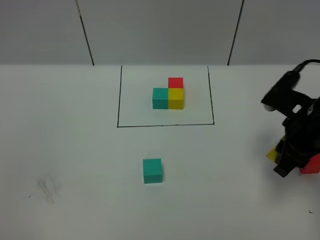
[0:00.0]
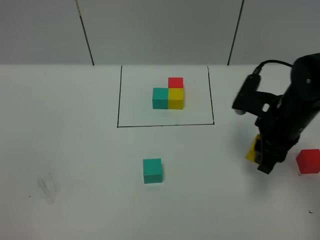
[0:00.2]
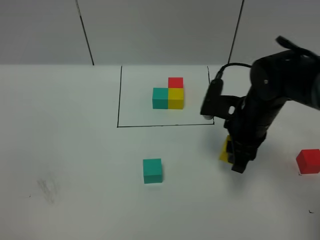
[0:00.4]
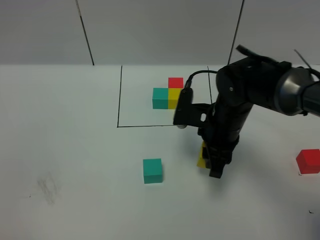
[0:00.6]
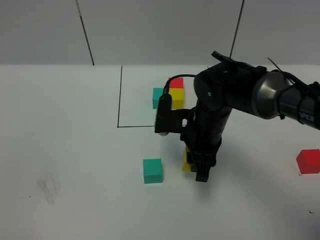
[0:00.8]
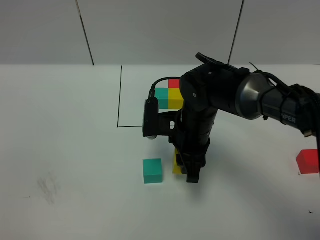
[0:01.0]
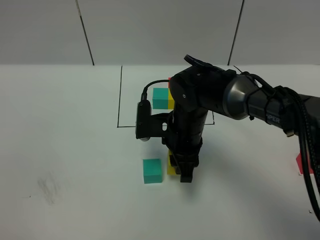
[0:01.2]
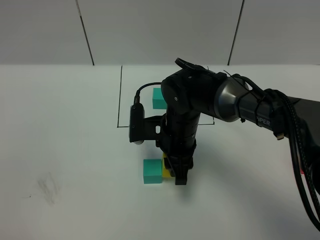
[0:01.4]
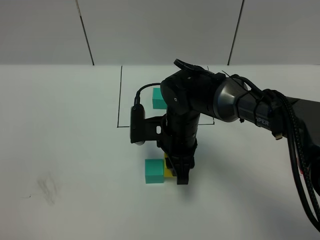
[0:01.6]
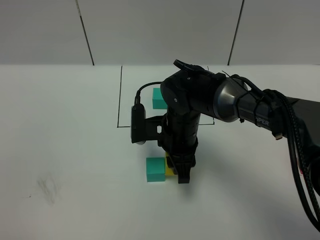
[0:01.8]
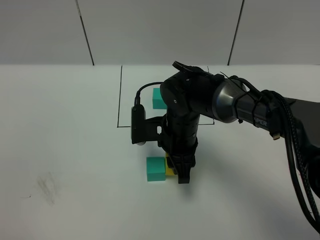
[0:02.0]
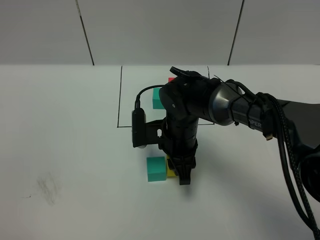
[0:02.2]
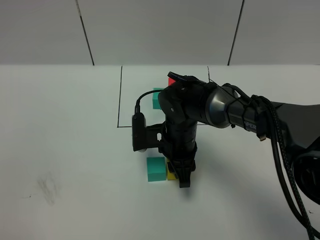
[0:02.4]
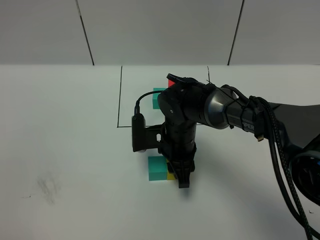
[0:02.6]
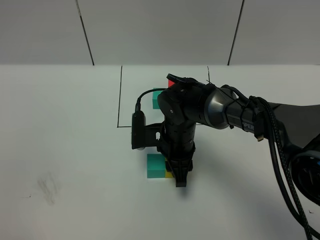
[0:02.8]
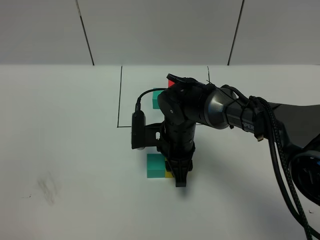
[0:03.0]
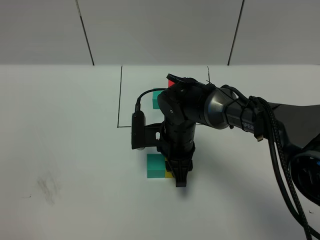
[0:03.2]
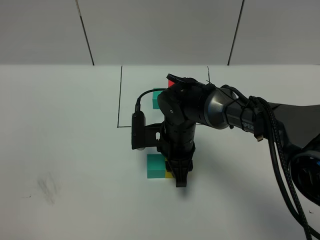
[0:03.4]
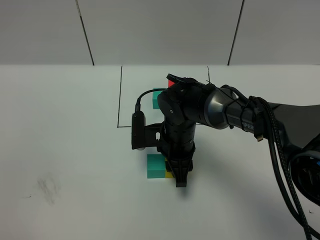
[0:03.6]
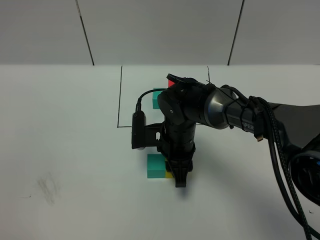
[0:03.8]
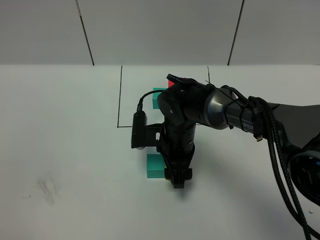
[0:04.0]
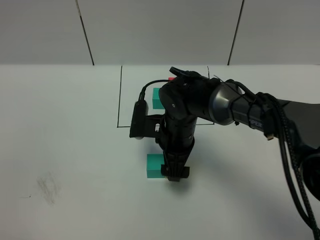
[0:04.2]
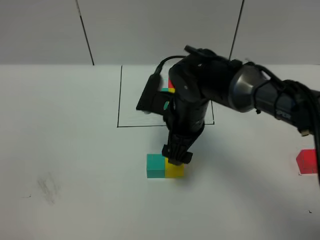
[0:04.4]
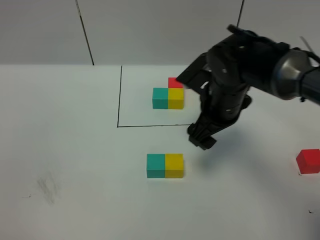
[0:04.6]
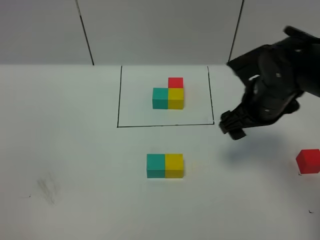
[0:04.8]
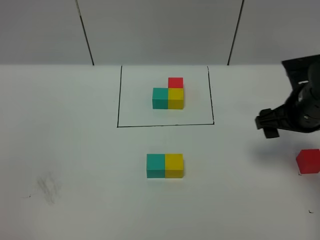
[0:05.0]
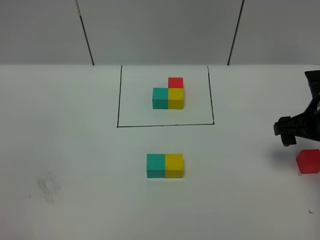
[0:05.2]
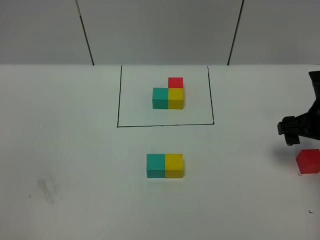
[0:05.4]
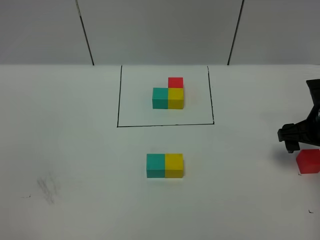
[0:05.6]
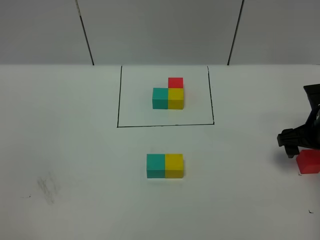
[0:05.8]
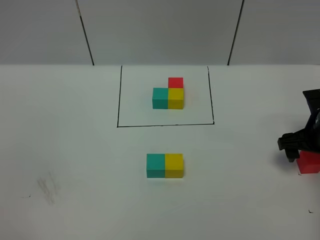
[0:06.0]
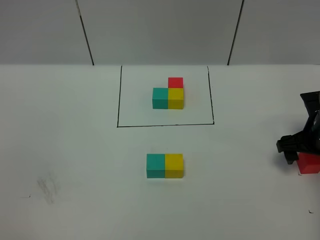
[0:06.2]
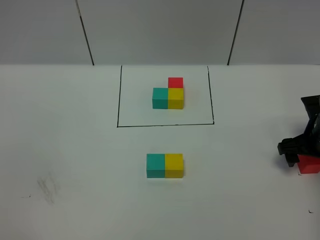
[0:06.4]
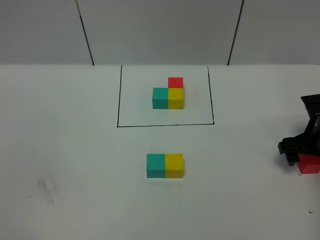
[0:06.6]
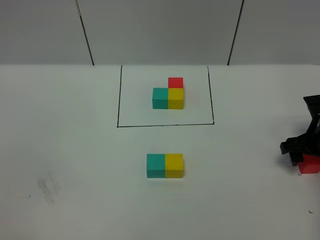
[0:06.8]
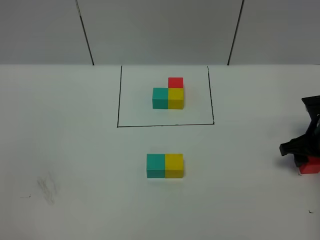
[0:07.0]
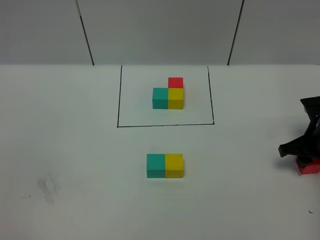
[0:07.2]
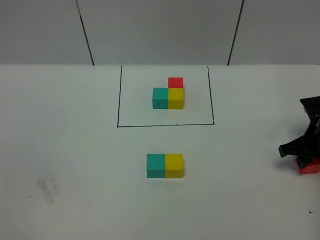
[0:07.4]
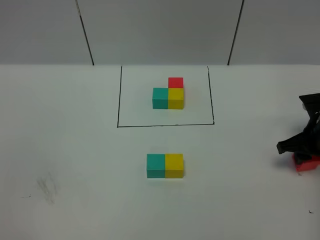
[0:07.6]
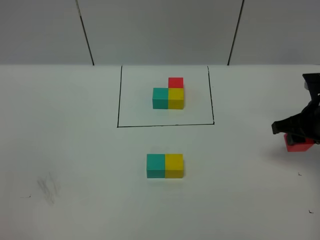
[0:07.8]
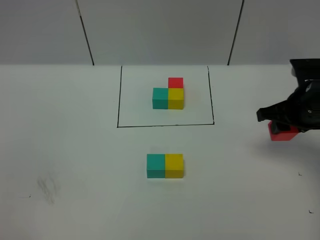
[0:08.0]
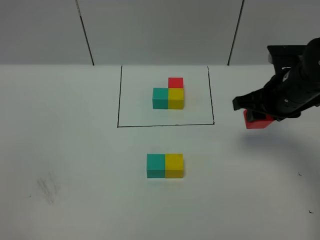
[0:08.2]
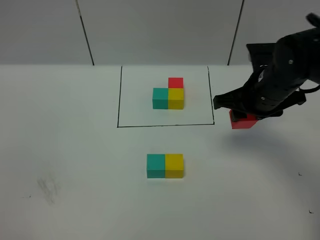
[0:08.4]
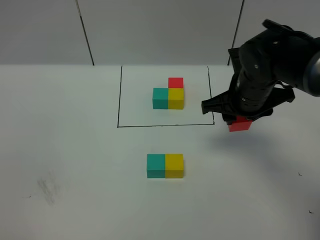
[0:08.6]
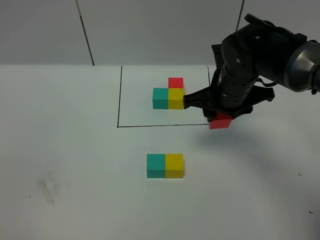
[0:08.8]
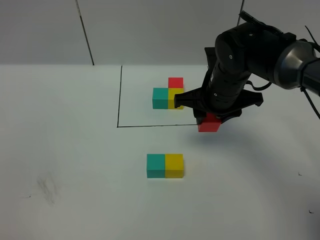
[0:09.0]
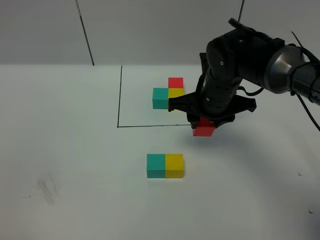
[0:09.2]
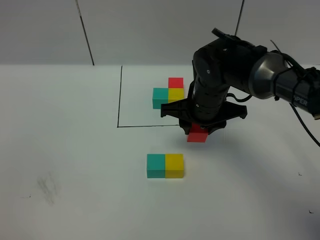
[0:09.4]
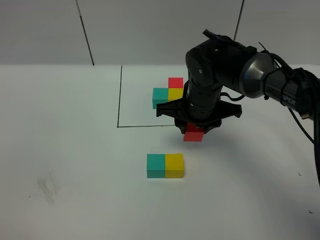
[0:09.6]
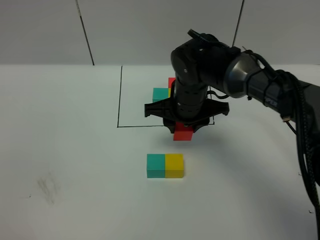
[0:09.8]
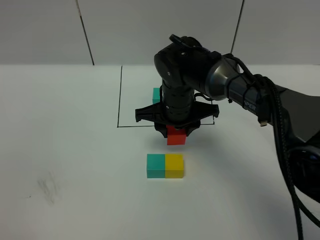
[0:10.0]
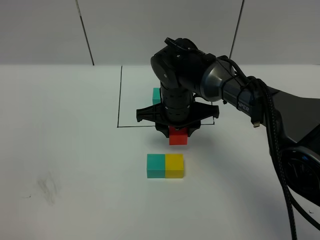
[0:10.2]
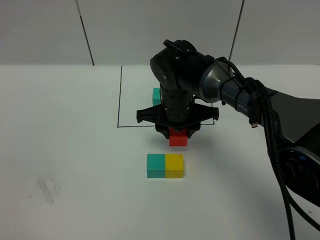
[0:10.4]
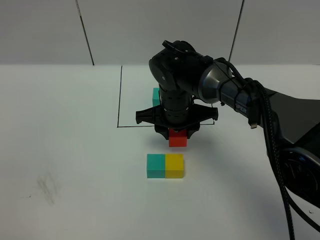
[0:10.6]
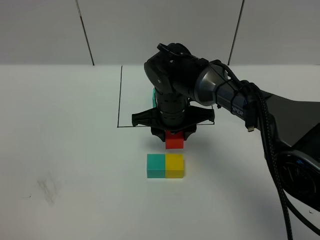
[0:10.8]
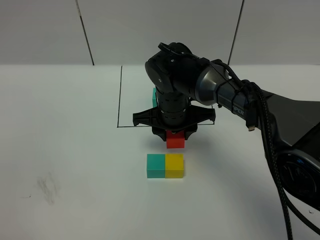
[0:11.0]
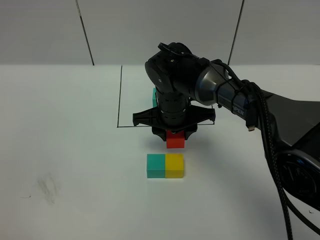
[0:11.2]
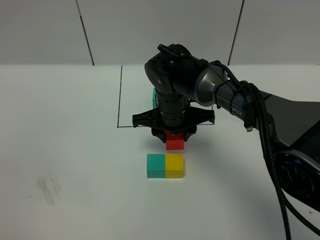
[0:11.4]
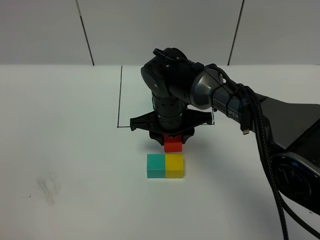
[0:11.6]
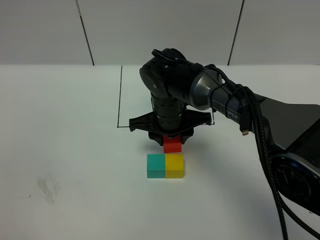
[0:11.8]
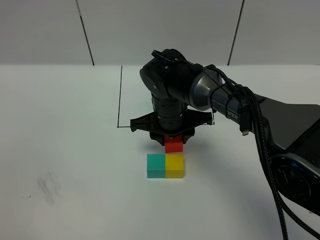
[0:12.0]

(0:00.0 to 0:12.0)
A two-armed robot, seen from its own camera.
Task of the whole recording: According to the building block template in front, assemble the scattered blocks together.
Step, 0:00.0 - 0:04.2: Put the yellow cube on the right of the green cube.
0:00.0 - 0:01.6: The right gripper goes some 20 cm to the left.
0:01.6 - 0:03.0: There are only small adjustments of the grippers.
0:03.0 - 0:04.4: The right gripper heads upward, covering some 5 cm, and opens.
0:04.4 - 0:06.0: The right gripper travels to the right by approximately 25 cm.
0:06.0 - 0:07.6: The right gripper closes up.
0:07.6 - 0:09.0: The right gripper heads to the left, covering approximately 20 cm.
0:09.0 - 0:10.4: The right gripper is displaced to the left by about 10 cm.
0:10.4 - 0:12.0: There are only small adjustments of the grippers.

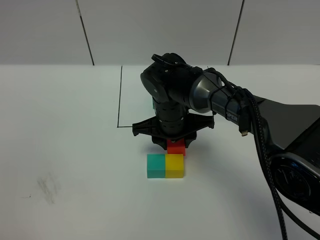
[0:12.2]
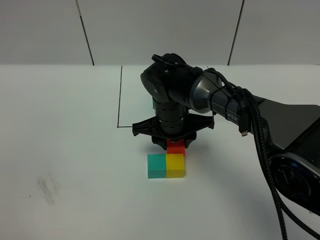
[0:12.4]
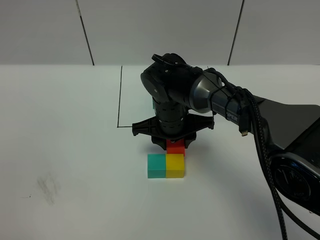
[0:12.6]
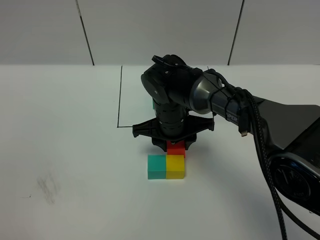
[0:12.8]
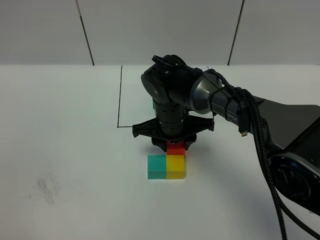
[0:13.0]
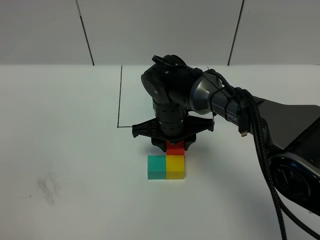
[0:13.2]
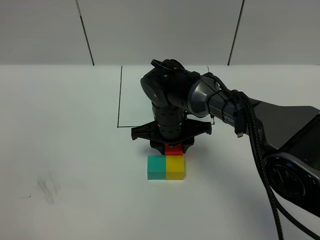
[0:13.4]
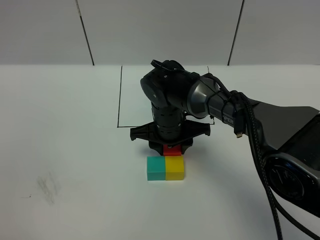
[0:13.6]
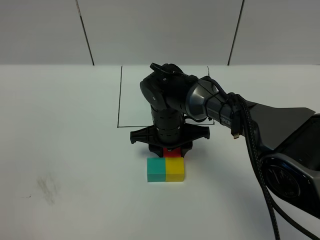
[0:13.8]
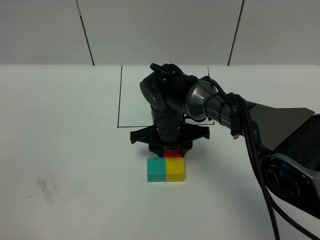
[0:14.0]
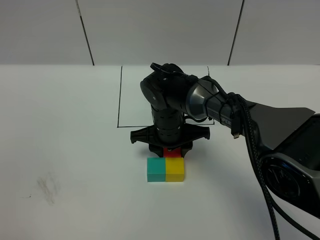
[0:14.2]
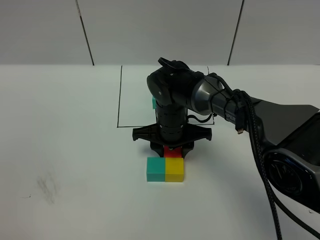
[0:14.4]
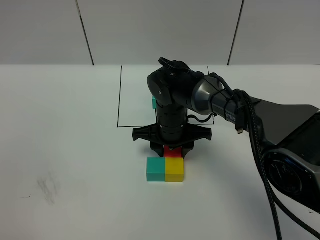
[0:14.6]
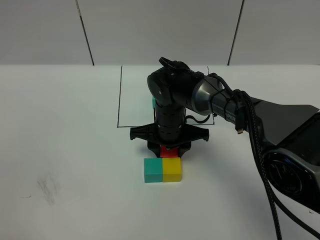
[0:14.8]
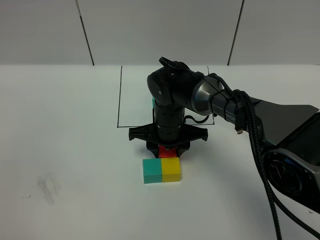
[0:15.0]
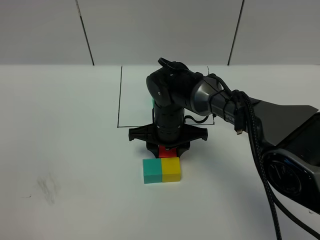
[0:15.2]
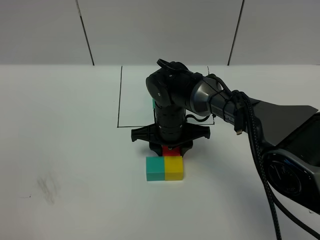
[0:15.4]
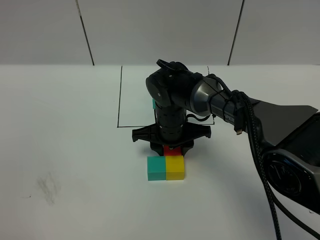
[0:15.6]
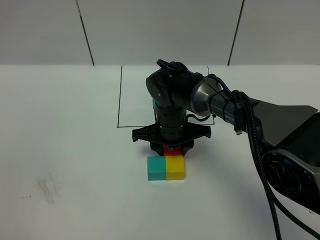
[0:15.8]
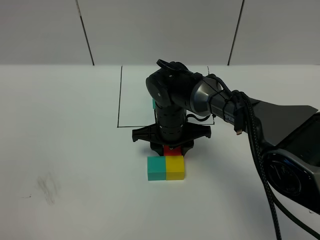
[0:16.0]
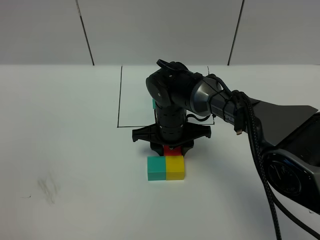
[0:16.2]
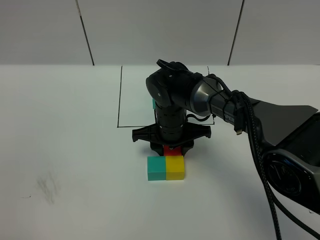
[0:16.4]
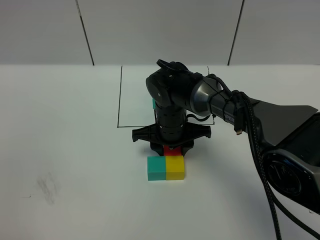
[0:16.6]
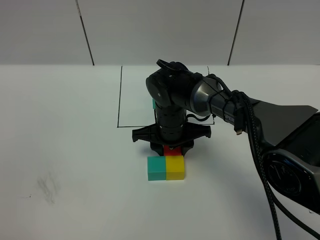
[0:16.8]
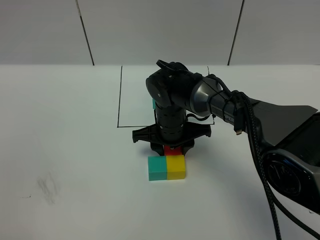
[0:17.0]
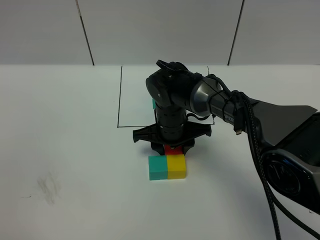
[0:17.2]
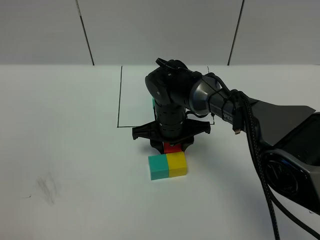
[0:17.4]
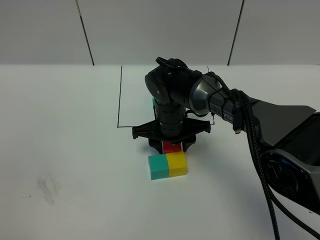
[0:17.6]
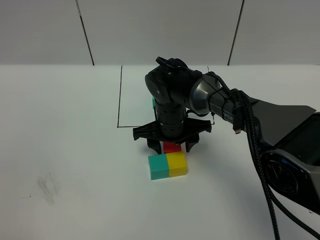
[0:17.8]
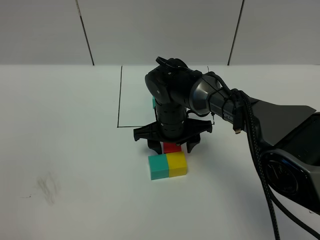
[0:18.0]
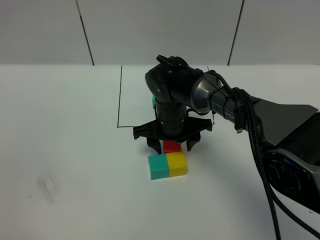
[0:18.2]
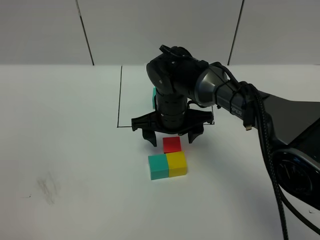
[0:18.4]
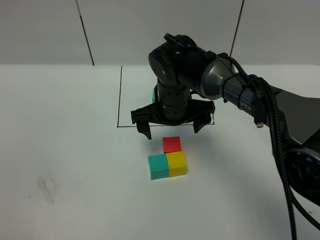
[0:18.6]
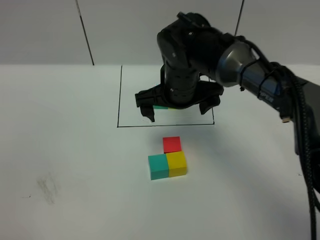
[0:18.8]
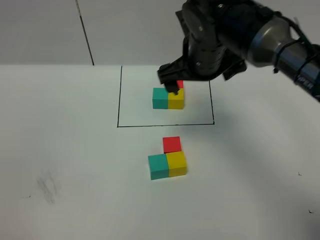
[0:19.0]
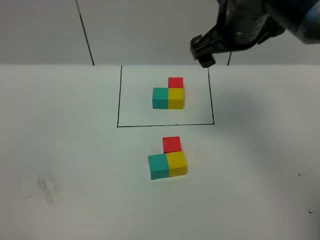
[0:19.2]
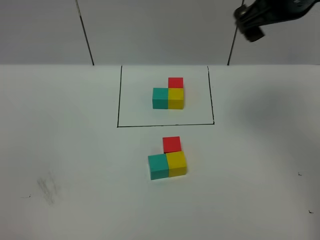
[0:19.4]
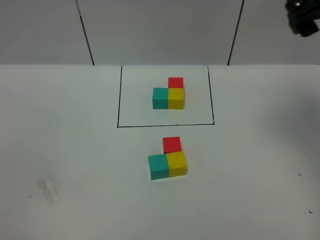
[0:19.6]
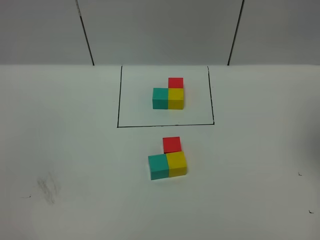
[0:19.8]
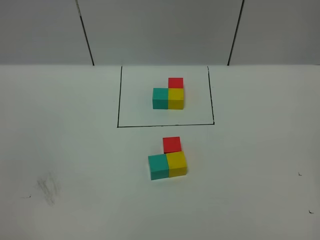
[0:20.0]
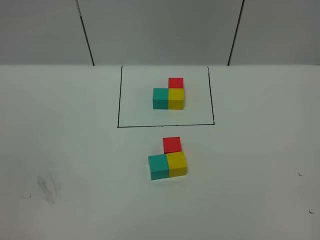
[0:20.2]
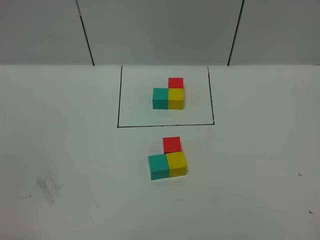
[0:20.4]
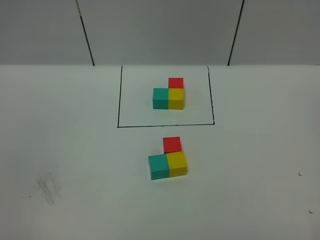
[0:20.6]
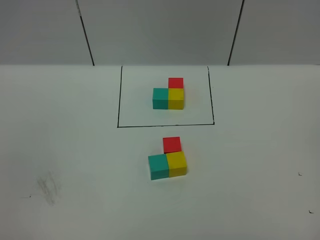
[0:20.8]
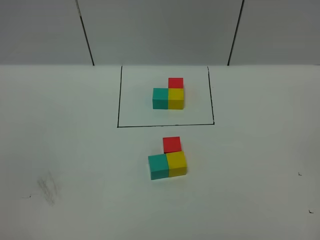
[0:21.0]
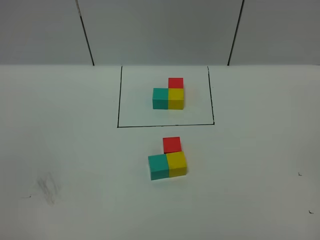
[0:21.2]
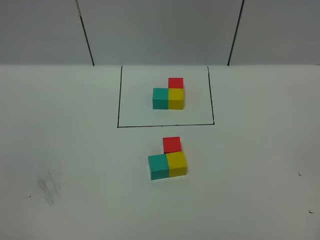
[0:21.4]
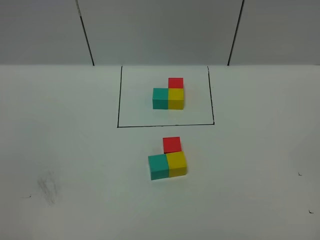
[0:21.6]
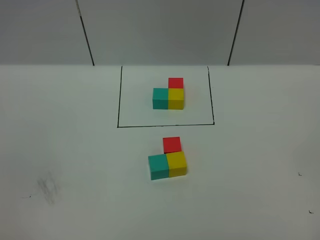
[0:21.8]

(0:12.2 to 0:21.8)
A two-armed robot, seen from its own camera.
Task of the whole recording: According to the building block template in front, assemble the scattered blocks together.
Step, 0:12.2 - 0:18.4: Put the red cube on the behind of the yellow cube.
0:12.2 - 0:15.4: The grippers make only small movements.
0:15.4 - 0:17.0: Both grippers stay put.
0:17.0 - 0:18.6: The right gripper is displaced upward by some 5 cm, and opens up.
0:18.6 - 0:20.2: The right gripper travels to the right, backward and upward by roughly 50 cm.

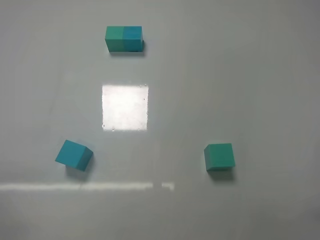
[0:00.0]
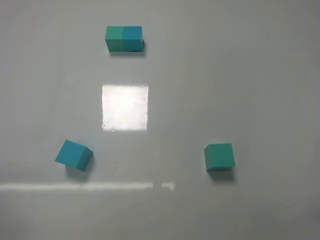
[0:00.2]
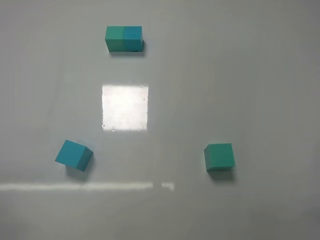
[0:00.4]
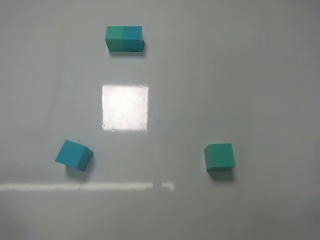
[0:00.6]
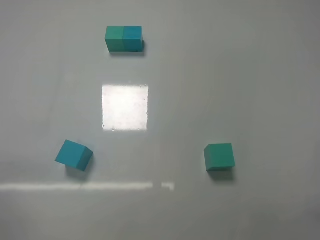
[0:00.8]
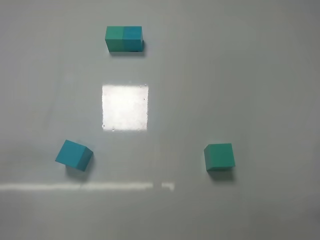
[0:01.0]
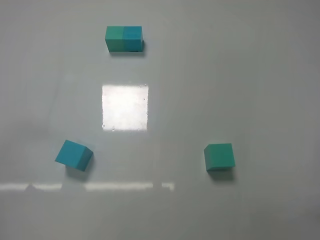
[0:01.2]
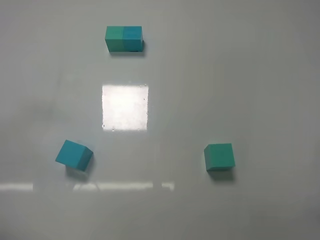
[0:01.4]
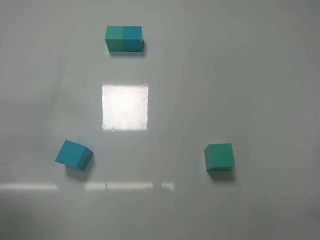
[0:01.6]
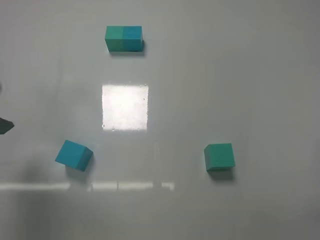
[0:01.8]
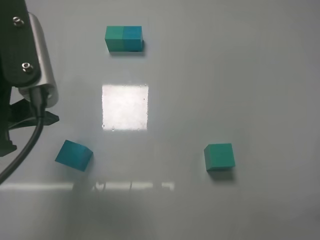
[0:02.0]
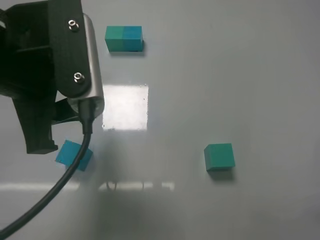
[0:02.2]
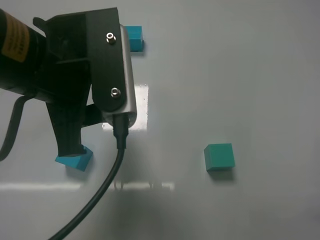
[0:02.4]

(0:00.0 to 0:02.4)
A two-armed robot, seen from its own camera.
Task of the whole recording: According to the building block template in front, assemble the scattered blocks together.
0:01.2 - 0:02.4: The left gripper heads to the right and forward, covering approximately 25 cm.
